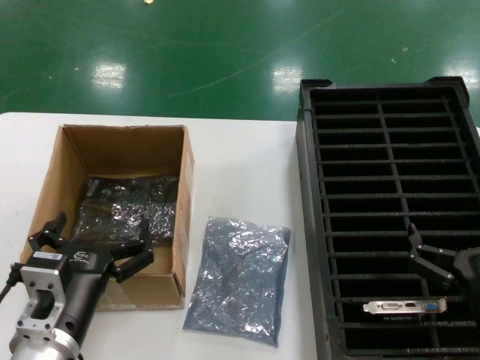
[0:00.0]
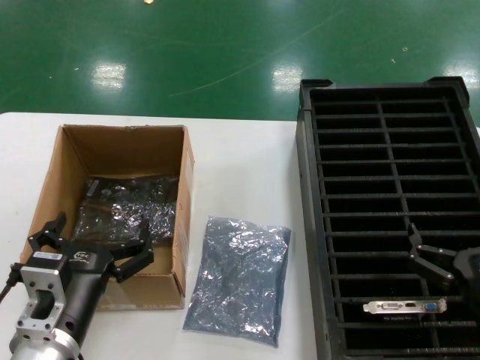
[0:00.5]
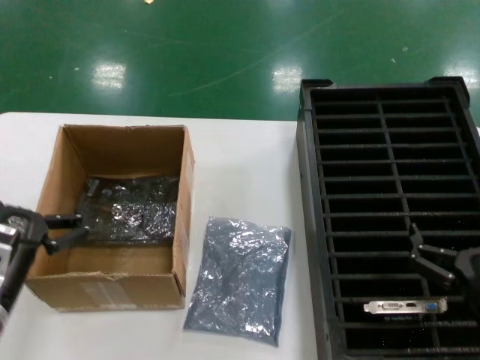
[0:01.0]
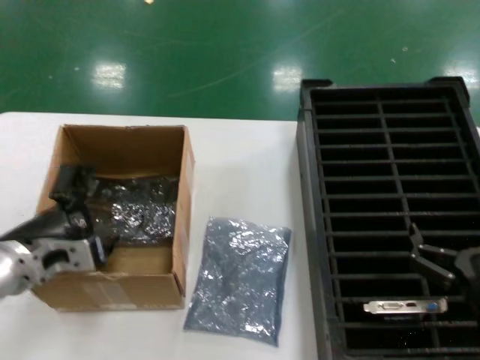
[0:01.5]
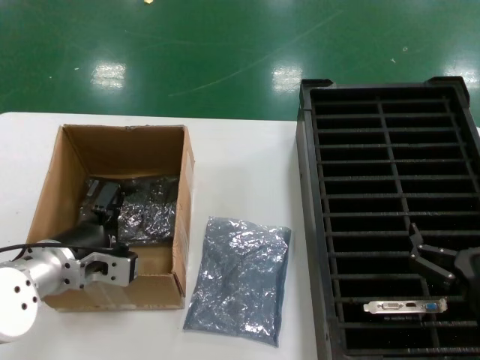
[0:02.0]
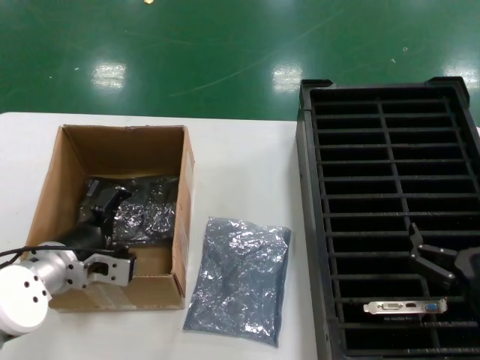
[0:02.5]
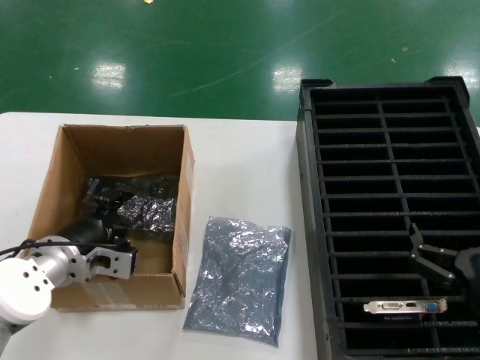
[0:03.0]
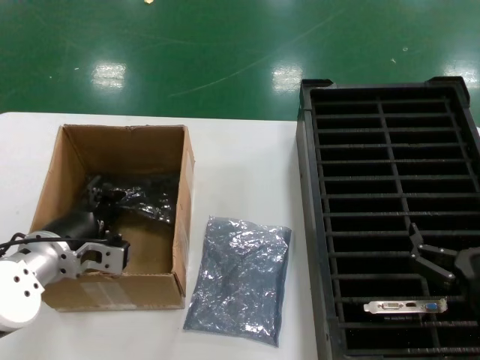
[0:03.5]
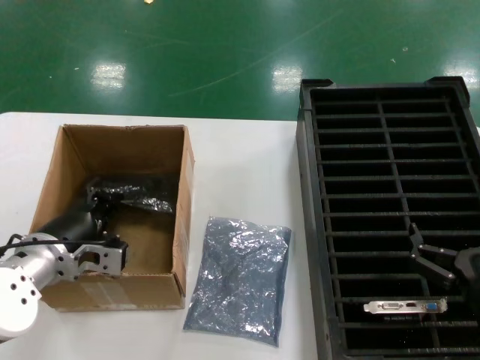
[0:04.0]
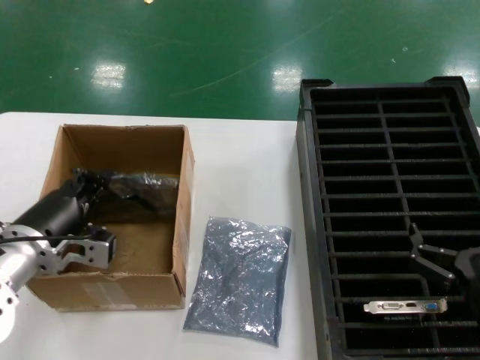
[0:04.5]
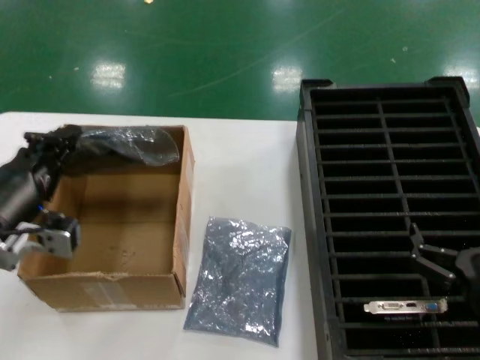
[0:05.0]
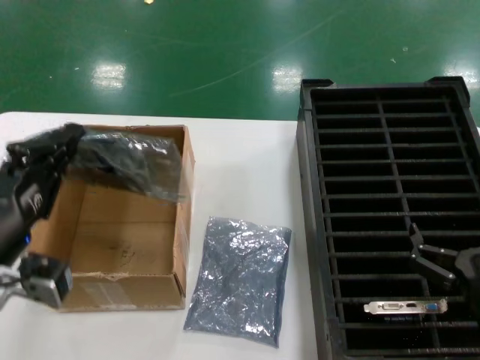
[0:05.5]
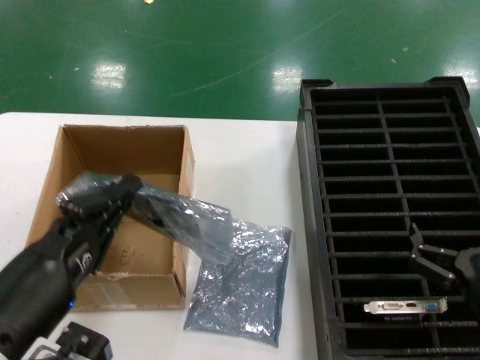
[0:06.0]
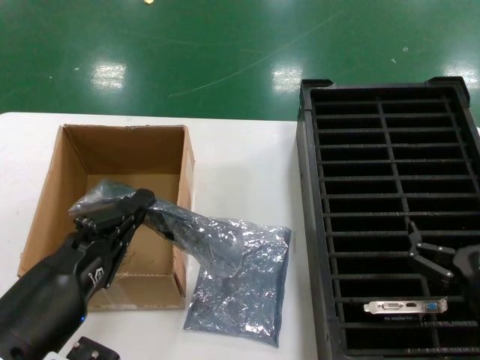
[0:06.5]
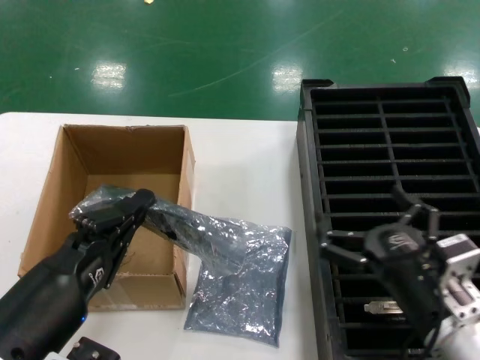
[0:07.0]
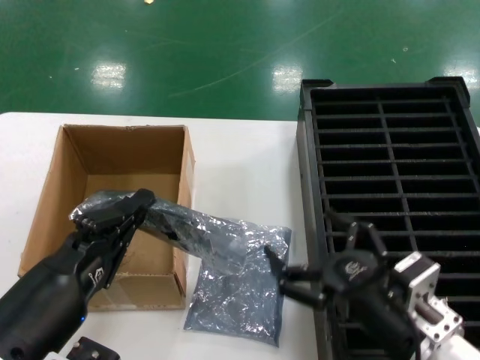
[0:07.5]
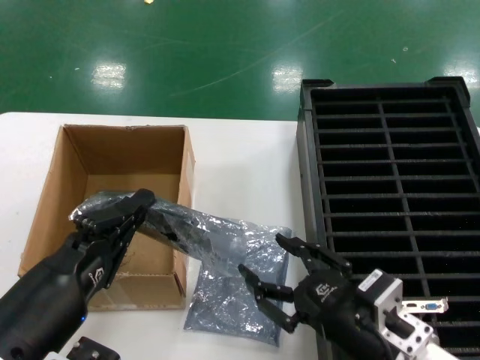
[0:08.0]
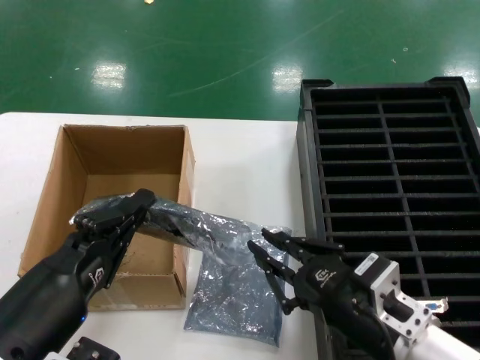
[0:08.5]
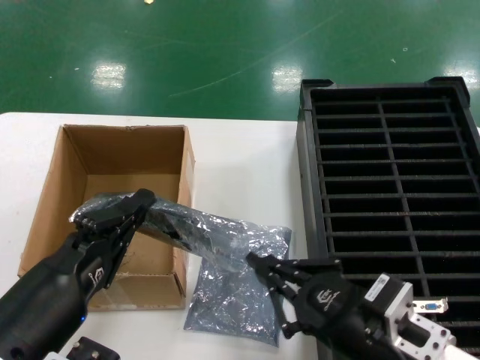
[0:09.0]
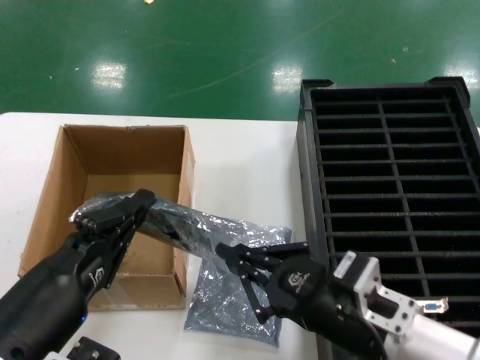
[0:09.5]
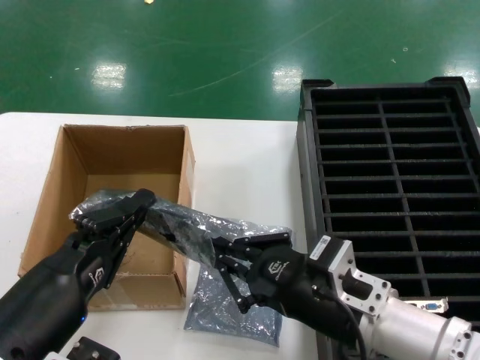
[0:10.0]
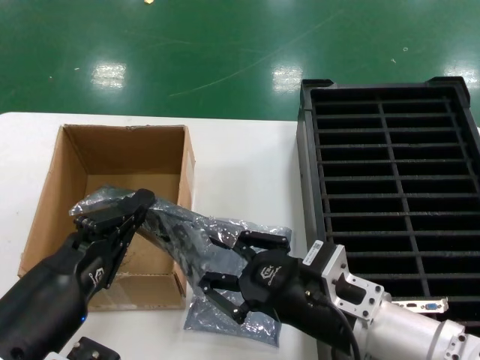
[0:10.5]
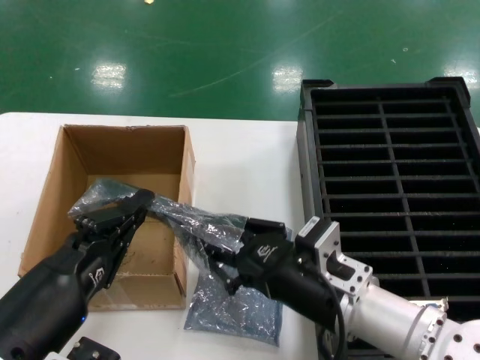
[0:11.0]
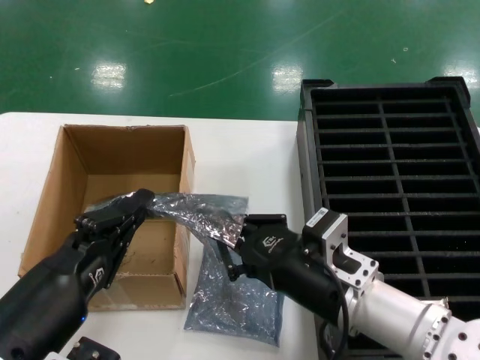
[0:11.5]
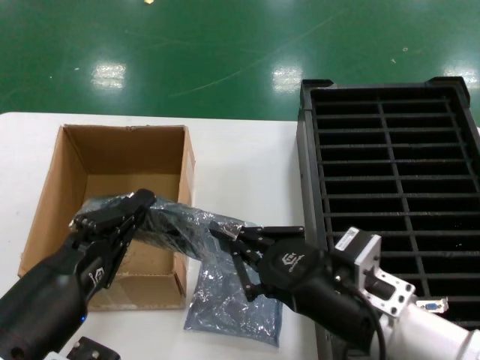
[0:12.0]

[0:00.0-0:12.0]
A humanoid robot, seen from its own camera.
Task of the whole recording: take out graphics card from box remove packaging put into black container.
Step, 0:00.0 to 0:03.5: Grasp the bag.
Step, 0:04.0 to 0:06.5: Lift the bag.
0:00.0 to 0:02.0: The left hand moves forward and to the left, roughly 15 cm.
0:02.0 to 0:04.0: The hands move only a little.
0:04.0 to 0:06.0: The left hand heads backward, covering roughly 20 cm.
0:06.0 to 0:08.0: The right hand shifts approximately 10 cm to the left.
0:08.0 to 0:10.0: The right hand moves approximately 5 cm.
0:10.0 to 0:12.0: The hands stay close to where they were, moving slightly.

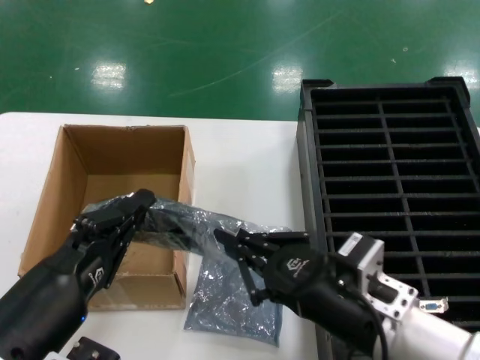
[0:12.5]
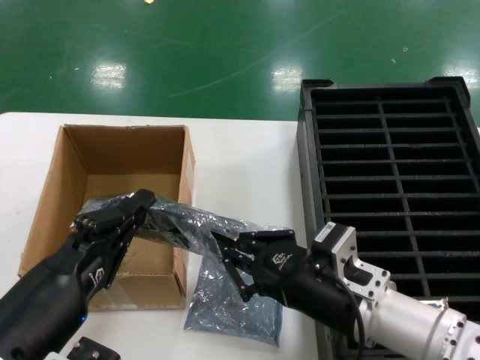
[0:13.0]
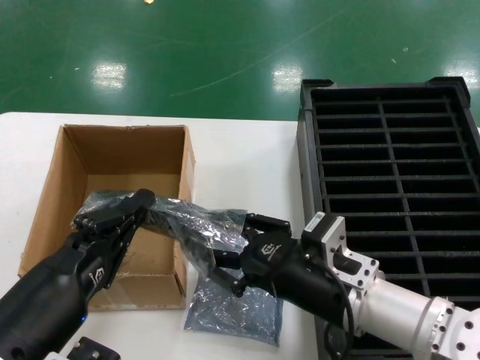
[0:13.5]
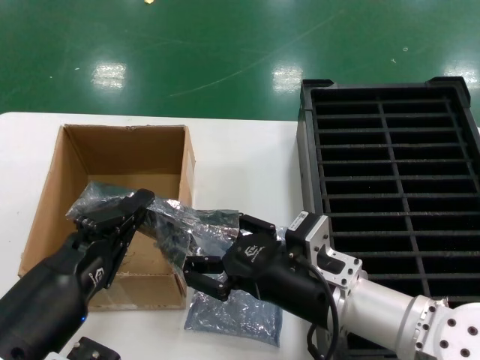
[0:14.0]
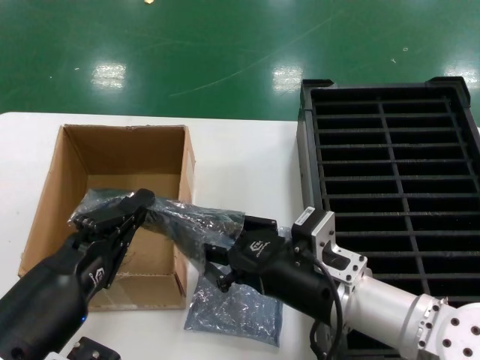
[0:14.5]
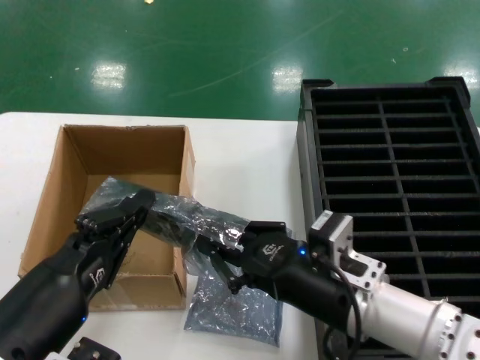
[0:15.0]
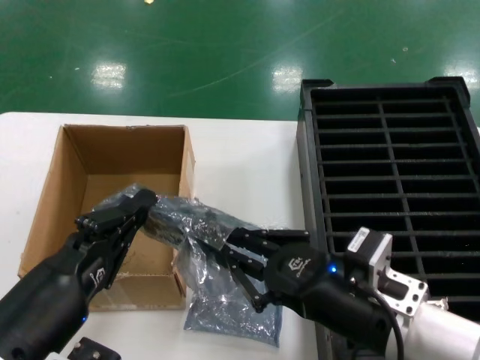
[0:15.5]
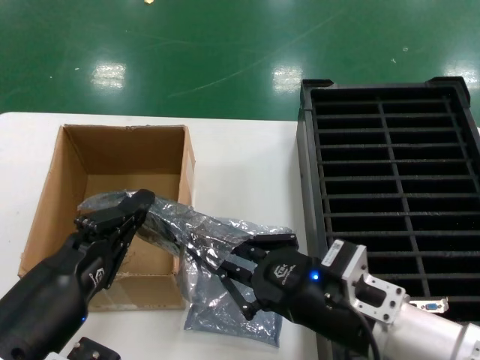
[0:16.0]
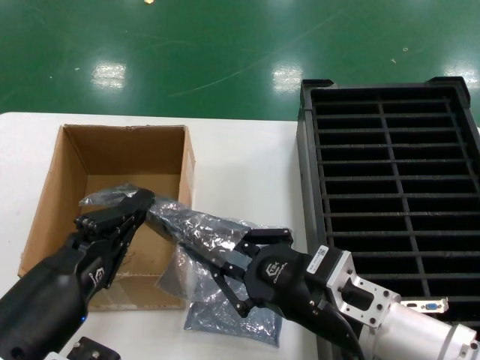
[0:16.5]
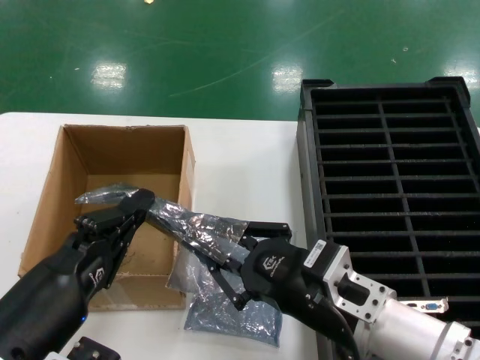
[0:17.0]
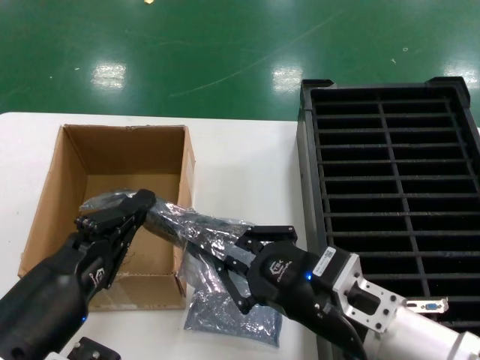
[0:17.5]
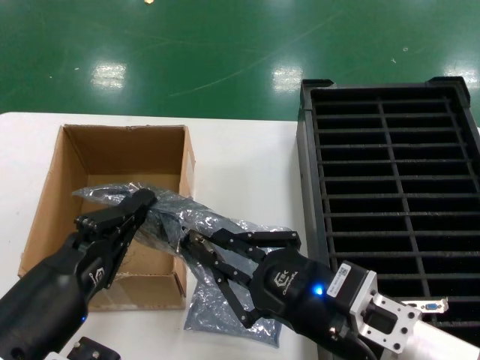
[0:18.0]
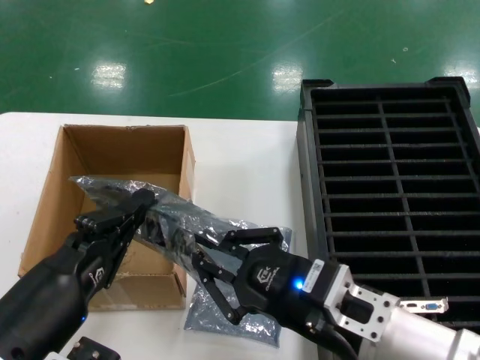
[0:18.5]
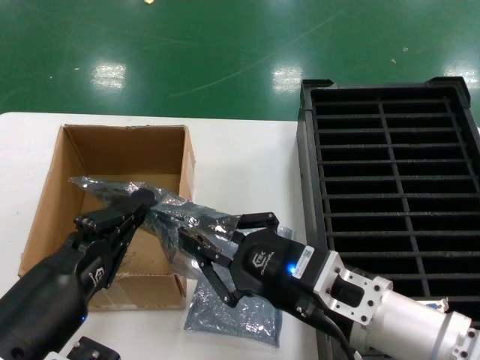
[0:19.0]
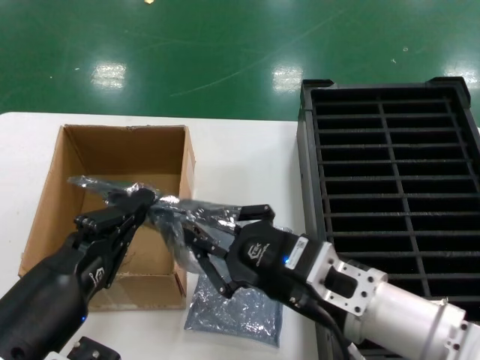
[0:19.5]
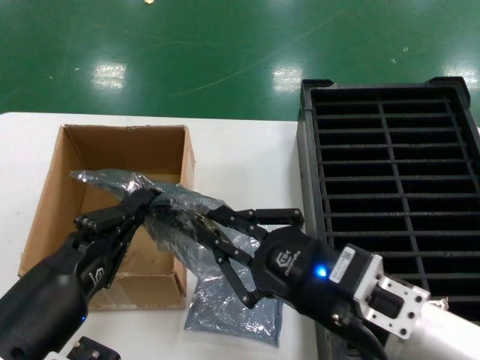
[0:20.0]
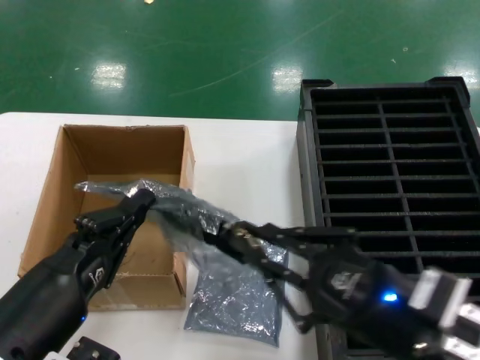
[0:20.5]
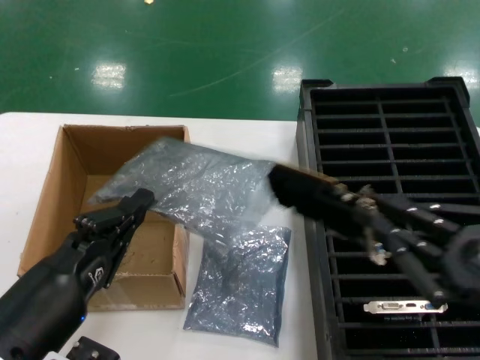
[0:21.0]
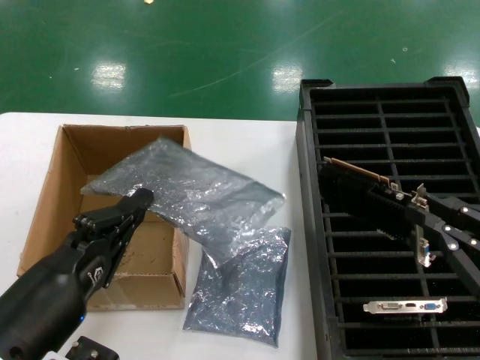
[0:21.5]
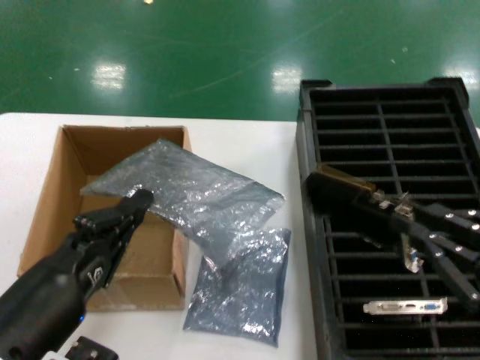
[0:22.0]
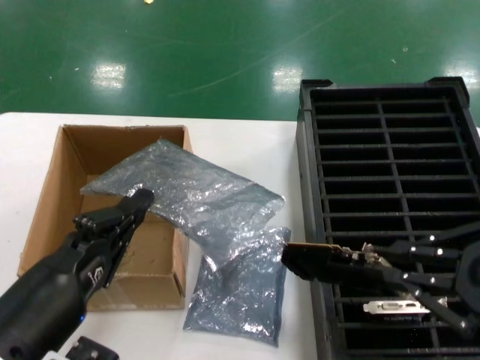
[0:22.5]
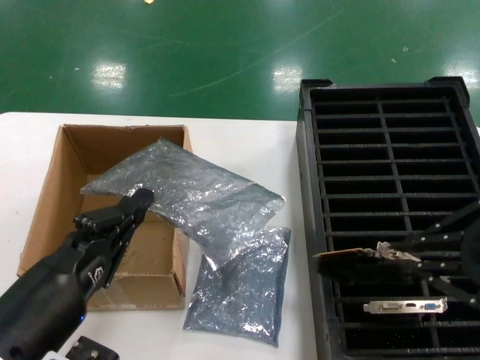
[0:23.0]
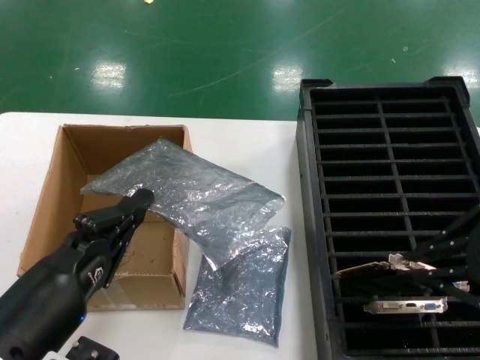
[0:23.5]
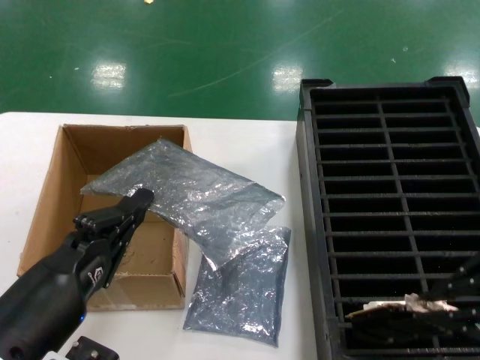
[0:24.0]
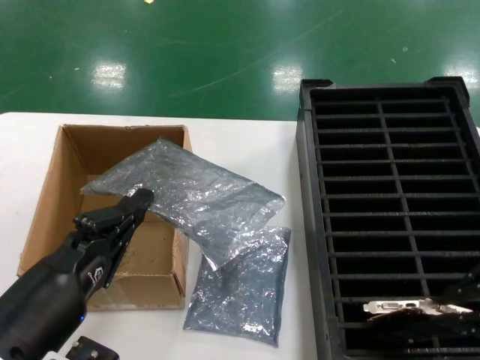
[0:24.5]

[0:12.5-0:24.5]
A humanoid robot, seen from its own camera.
Task of the whole recording: take out graphics card from box remove packaging put into black container.
Step, 0:12.5 to 0:21.0: Take out the hard disk of the bag.
0:12.5 to 0:14.5: The right hand ends up approximately 5 cm from where it was.
0:16.5 to 0:18.5: The hands move only a little.
0:18.5 to 0:20.5: The right hand shifts approximately 5 cm to the right.
0:20.5 to 0:22.5: The right hand heads to the right and upward, covering approximately 15 cm.
0:22.5 to 0:24.5: The right hand moves upward, some 5 cm.

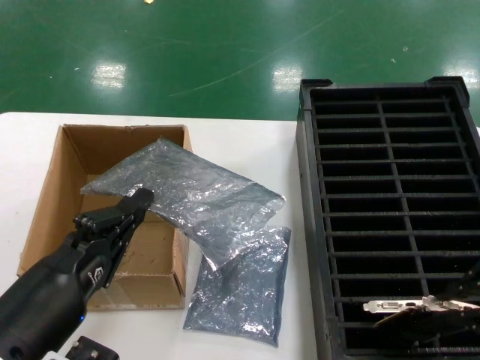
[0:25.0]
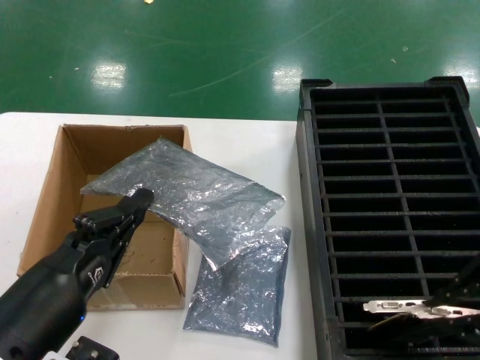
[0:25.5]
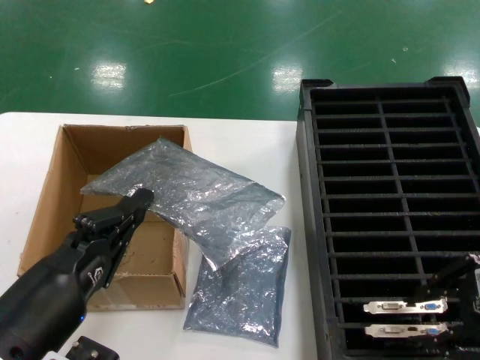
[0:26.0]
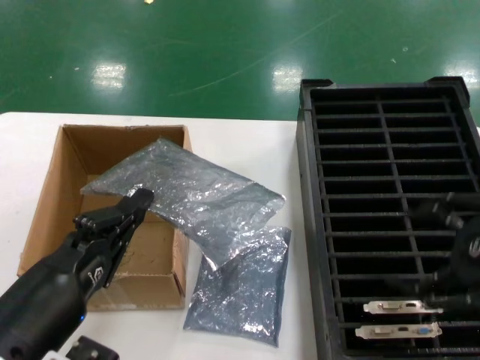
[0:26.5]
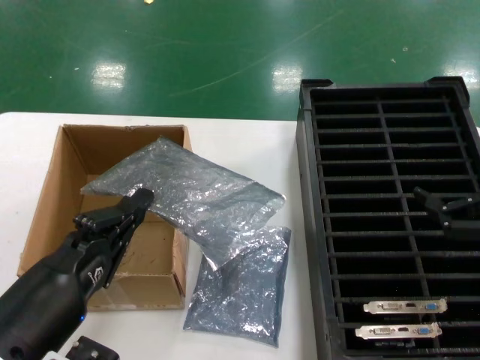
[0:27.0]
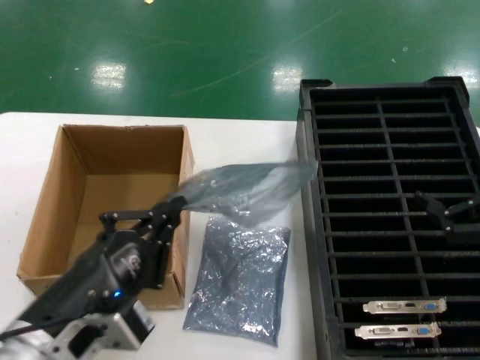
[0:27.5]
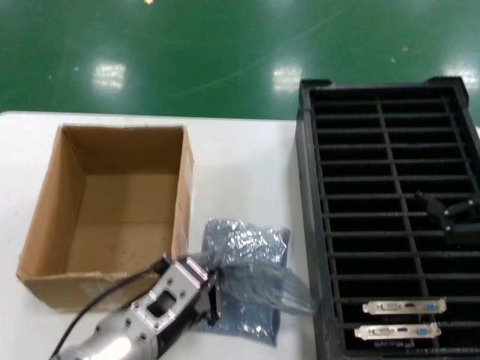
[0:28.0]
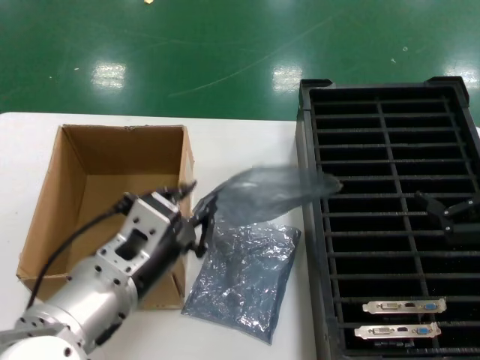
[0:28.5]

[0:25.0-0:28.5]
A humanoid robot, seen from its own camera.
Task of the whole recording: take out graphics card from box remove packaging put into black container.
0:25.0 to 0:27.0: The right hand shifts roughly 5 cm downward.
0:27.0 to 0:28.5: The left hand travels forward and to the right by some 10 cm.
